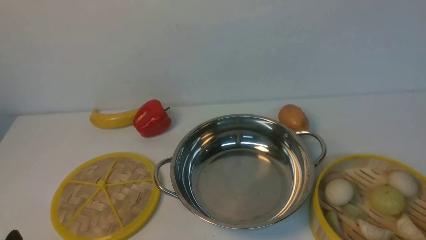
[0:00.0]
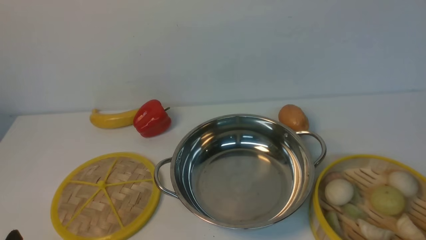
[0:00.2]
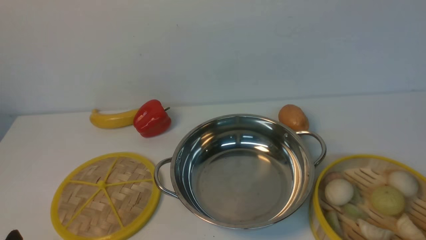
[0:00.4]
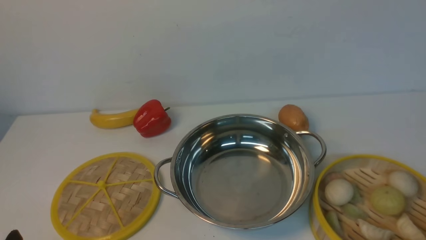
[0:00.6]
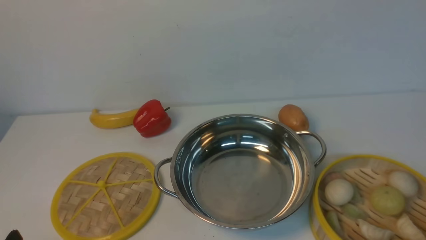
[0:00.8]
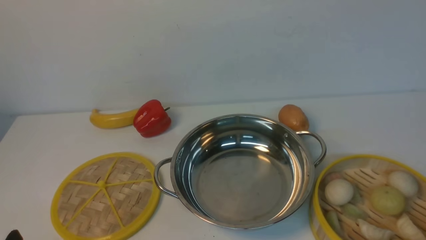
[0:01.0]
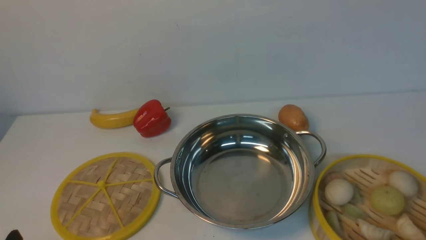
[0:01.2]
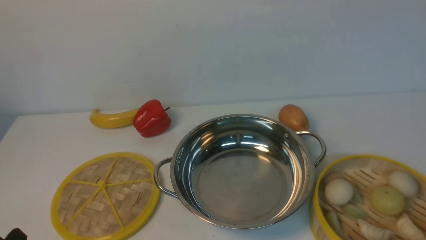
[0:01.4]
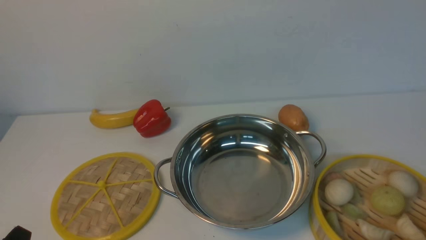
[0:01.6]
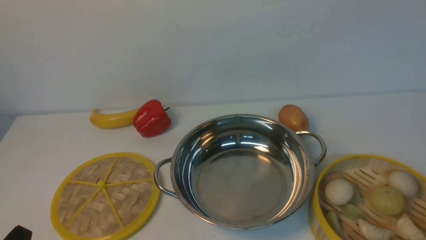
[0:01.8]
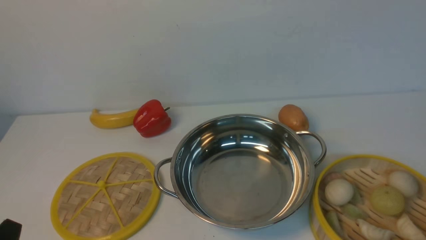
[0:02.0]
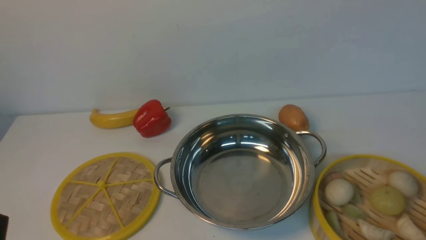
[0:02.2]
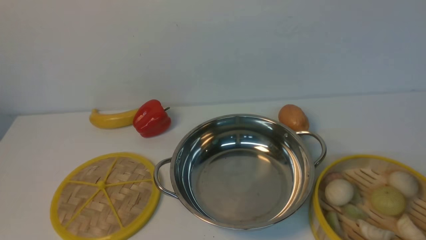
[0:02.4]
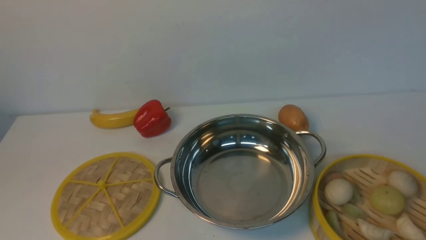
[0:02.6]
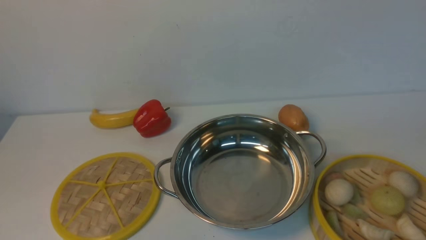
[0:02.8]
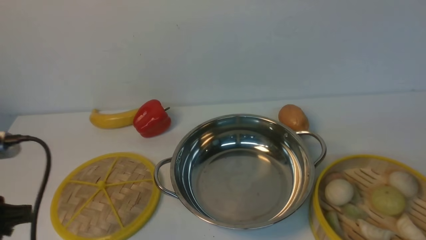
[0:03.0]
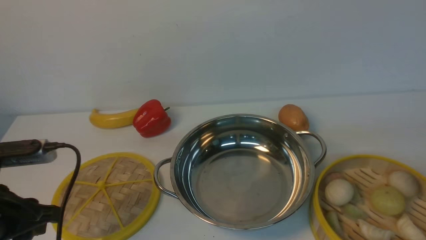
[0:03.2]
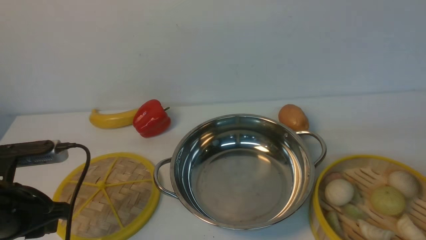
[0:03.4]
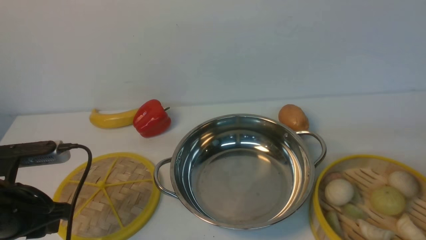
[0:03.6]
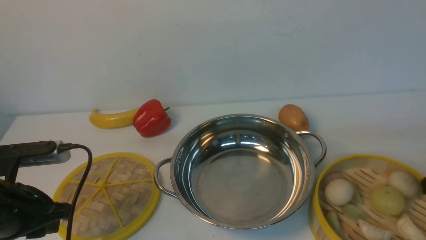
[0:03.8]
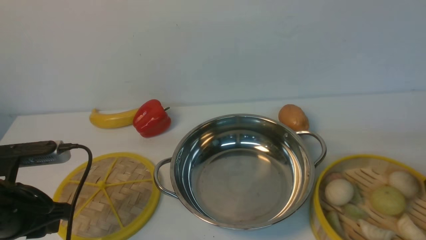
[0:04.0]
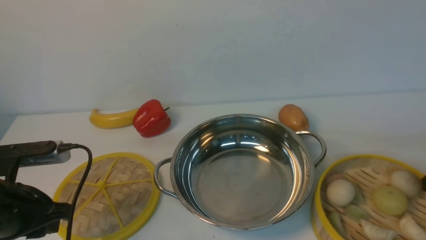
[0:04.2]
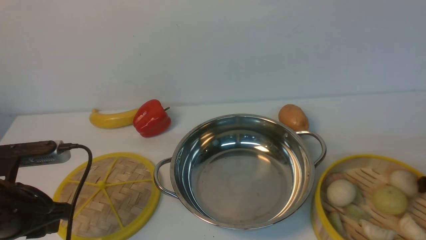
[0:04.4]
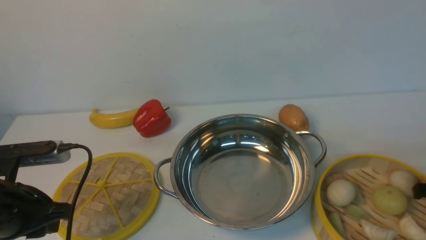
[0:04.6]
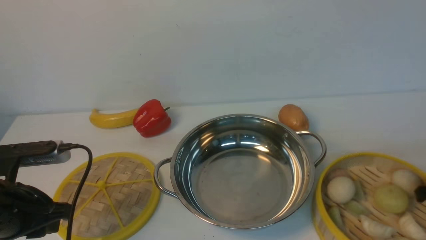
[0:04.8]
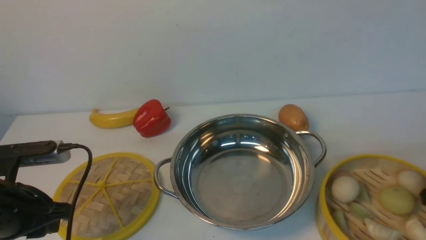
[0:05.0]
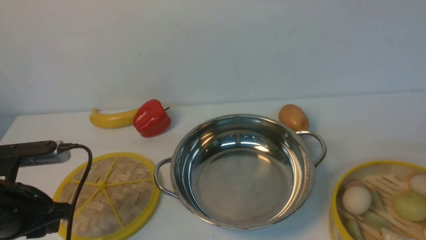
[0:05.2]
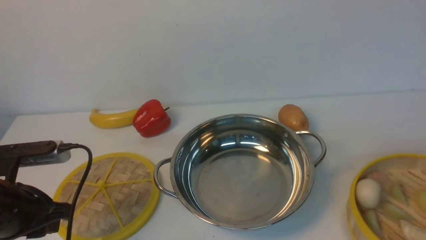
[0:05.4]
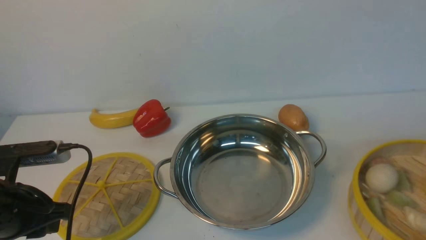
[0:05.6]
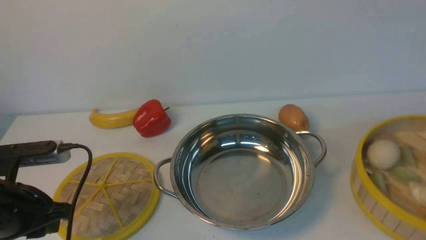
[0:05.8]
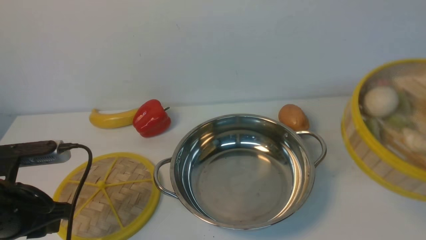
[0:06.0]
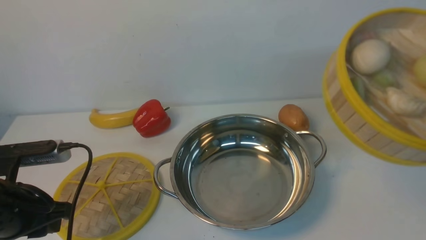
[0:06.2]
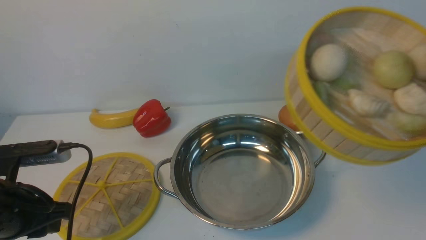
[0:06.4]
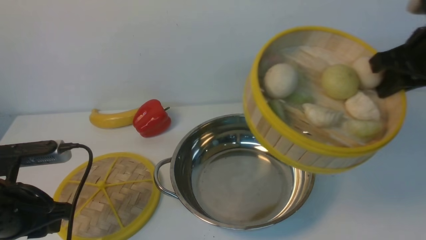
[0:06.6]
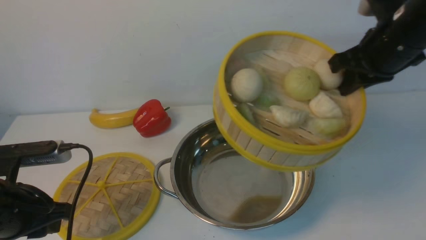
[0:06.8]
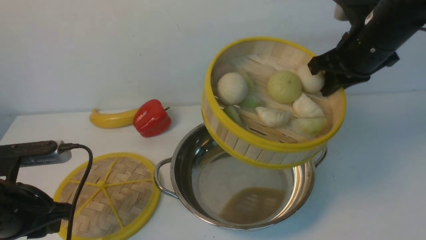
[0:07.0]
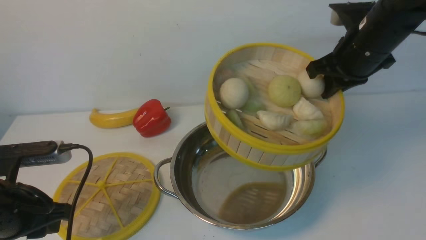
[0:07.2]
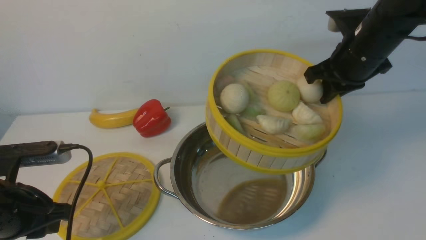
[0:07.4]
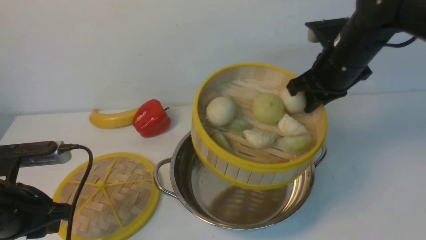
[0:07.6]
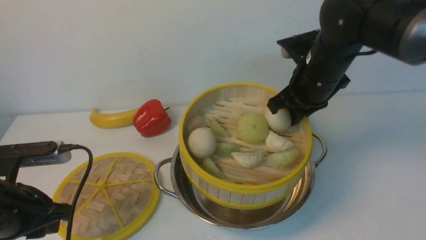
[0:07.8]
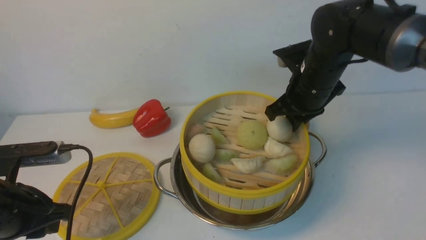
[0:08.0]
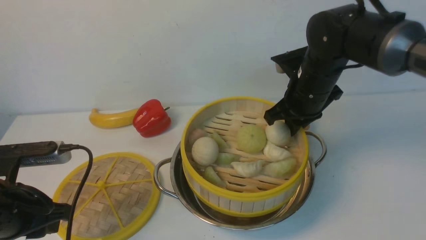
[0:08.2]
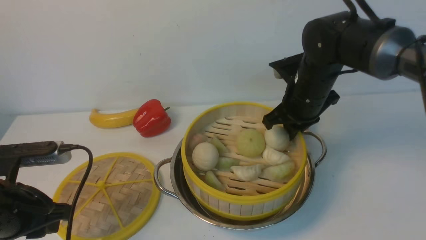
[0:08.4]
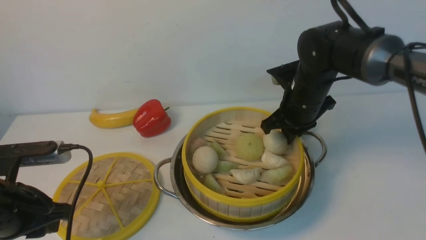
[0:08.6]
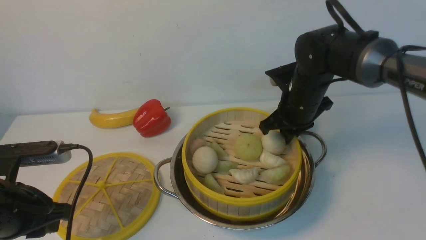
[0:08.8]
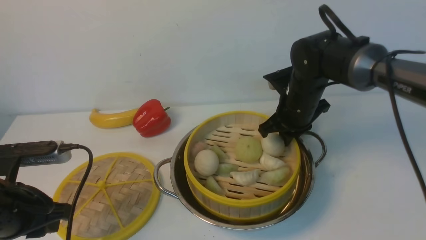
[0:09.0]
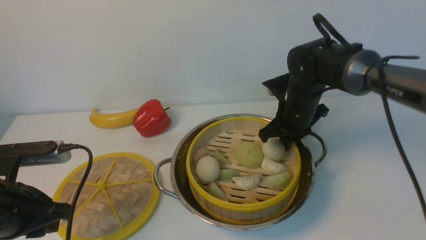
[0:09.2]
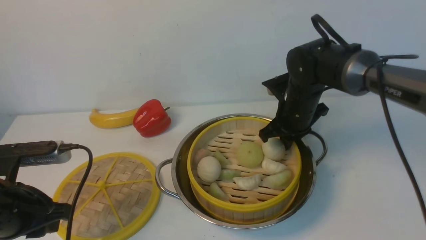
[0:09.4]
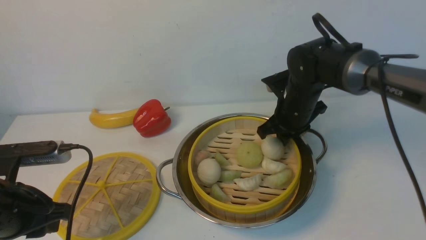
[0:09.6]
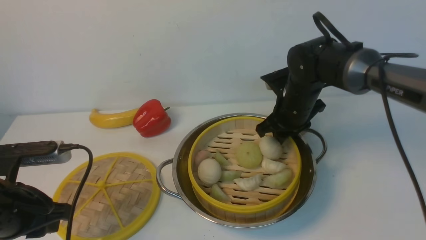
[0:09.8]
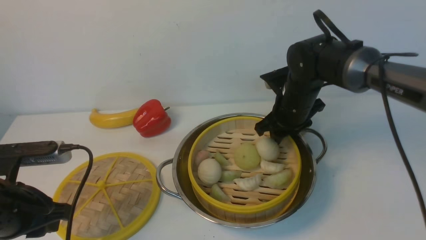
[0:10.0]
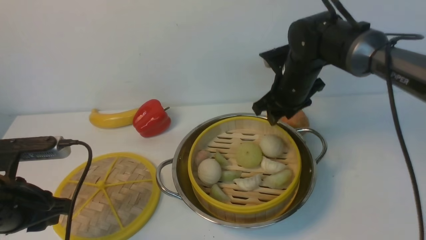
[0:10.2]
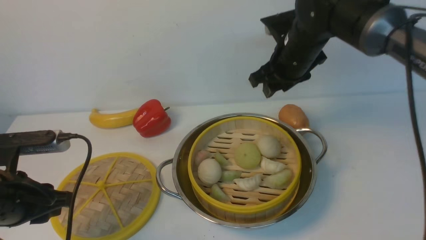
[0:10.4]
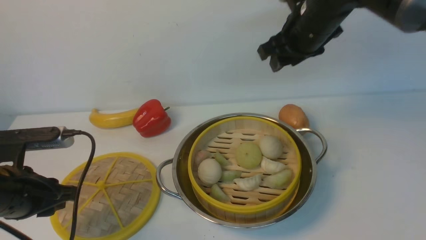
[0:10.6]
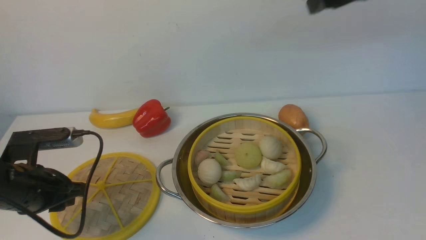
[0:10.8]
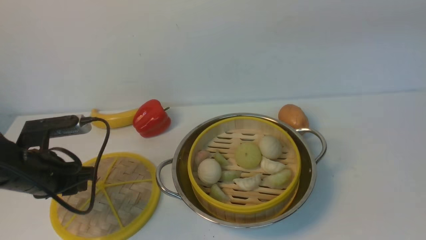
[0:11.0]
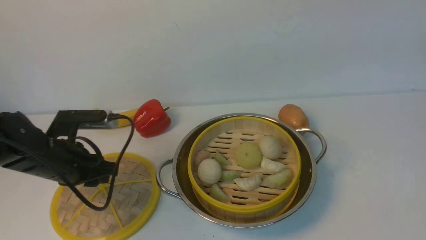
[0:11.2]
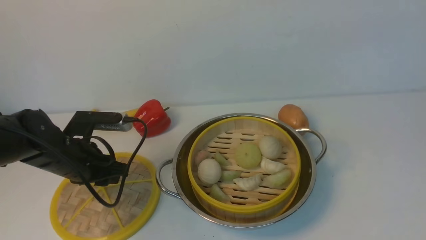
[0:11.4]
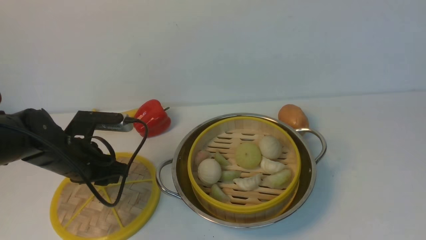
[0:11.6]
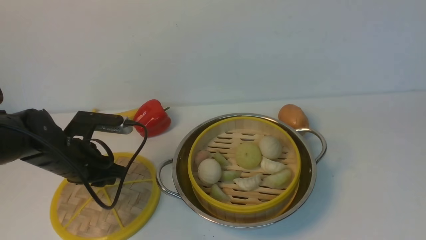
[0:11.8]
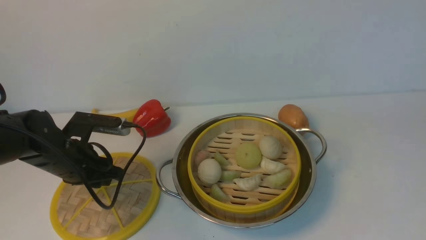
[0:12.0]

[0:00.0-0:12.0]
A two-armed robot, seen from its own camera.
Task of the whole recording: place the steamer in the pot on the white table, and put the lid on the steamer.
Step, 0:00.0 to 0:05.4: use the right arm to lift the steamer closest to it.
Step, 0:05.6 to 0:10.6: use the right arm to put the steamer into the iron steamer pot in the middle.
0:01.6 to 0:03.0: The left gripper travels upward and forward by some 15 cm.
0:03.0 to 0:04.4: The left gripper goes about 5 cm downward.
0:04.4 to 0:06.0: The right gripper moves upward, roughly 15 cm, and closes.
0:06.0 to 0:07.6: The right gripper goes roughly 25 cm to the left and forward.
0:07.6 to 0:09.0: The right gripper is displaced downward by approximately 10 cm.
0:09.0 to 0:10.4: The right gripper travels upward by about 10 cm, and opens.
0:10.4 to 0:12.0: The left gripper moves forward and downward, approximately 10 cm, while the right gripper moves backward, to the right and upward, roughly 40 cm.

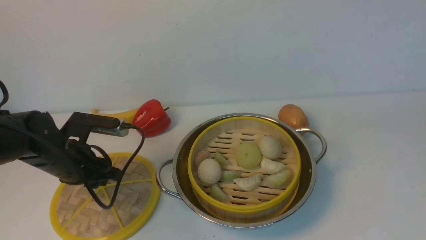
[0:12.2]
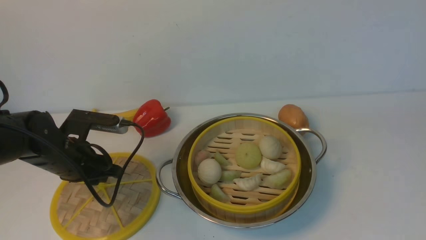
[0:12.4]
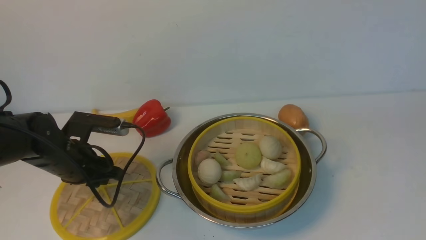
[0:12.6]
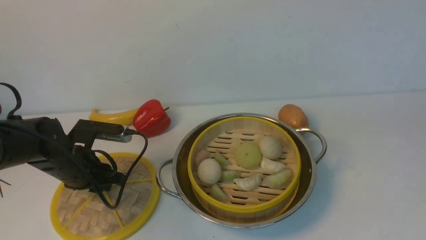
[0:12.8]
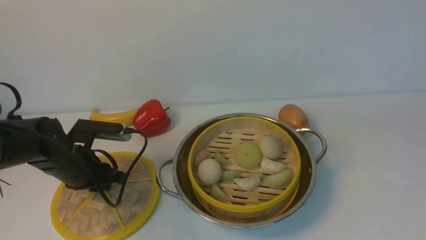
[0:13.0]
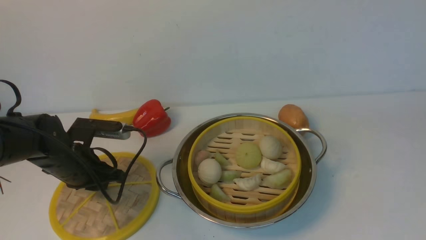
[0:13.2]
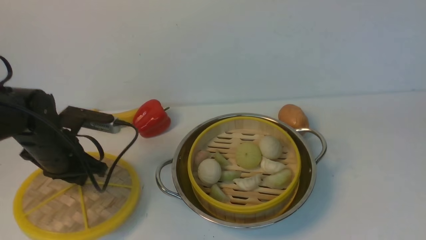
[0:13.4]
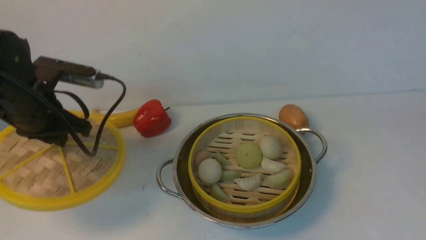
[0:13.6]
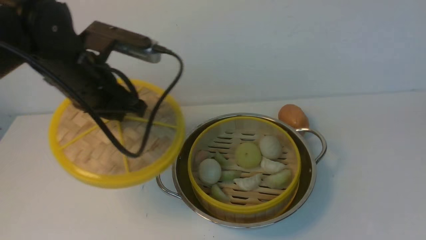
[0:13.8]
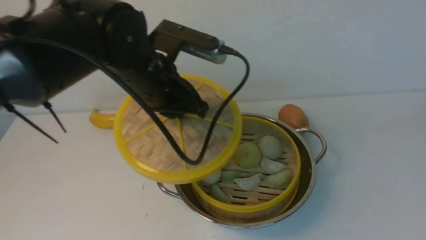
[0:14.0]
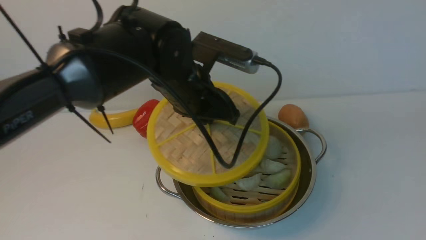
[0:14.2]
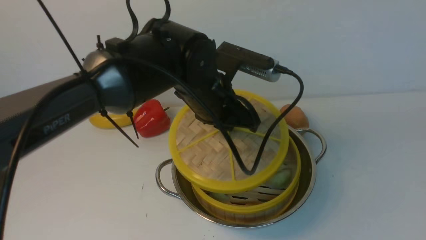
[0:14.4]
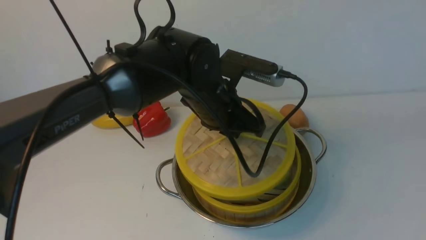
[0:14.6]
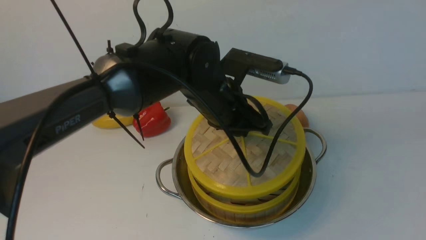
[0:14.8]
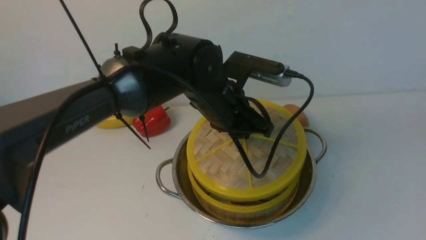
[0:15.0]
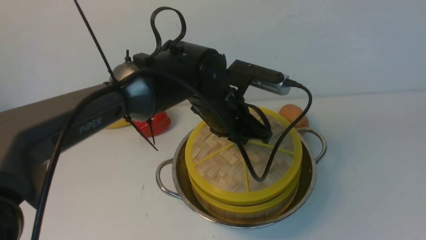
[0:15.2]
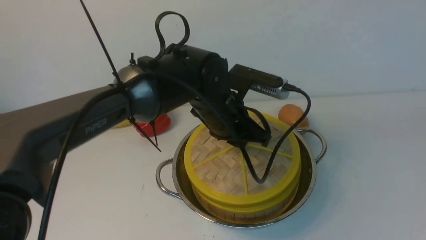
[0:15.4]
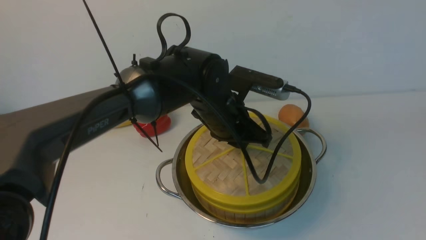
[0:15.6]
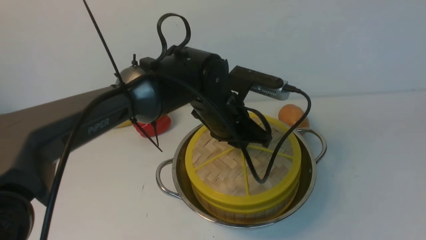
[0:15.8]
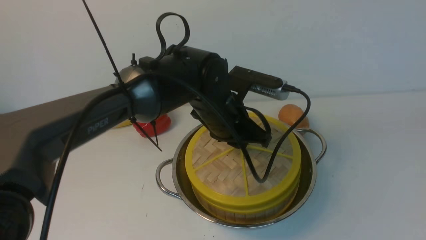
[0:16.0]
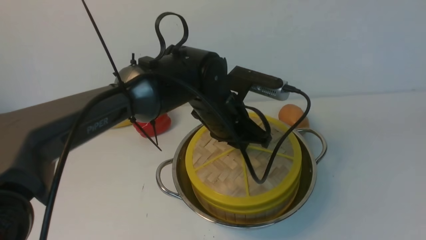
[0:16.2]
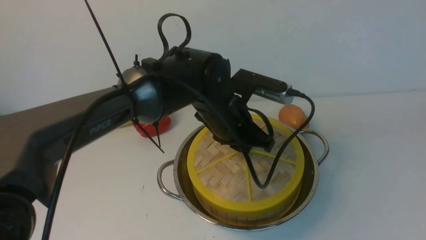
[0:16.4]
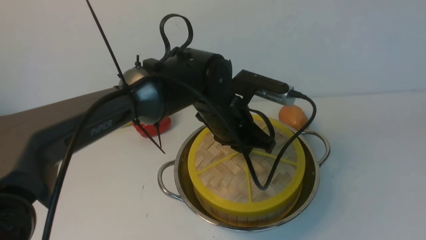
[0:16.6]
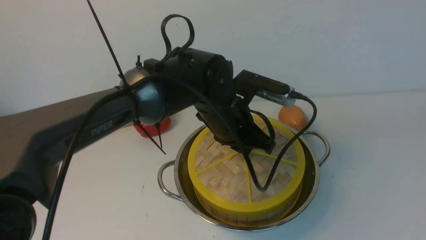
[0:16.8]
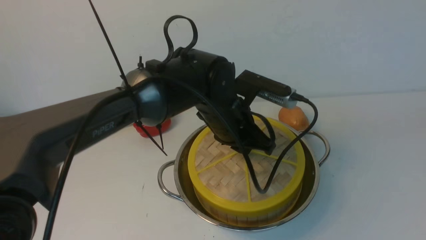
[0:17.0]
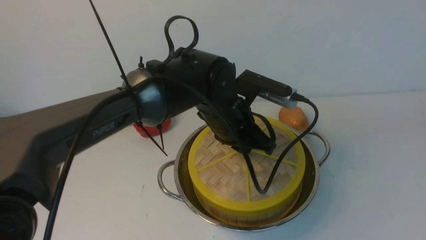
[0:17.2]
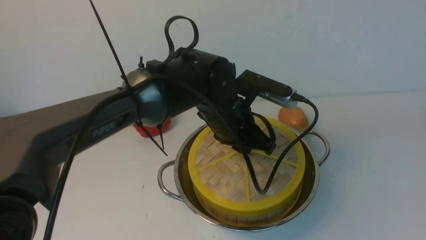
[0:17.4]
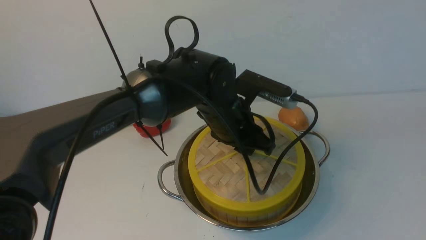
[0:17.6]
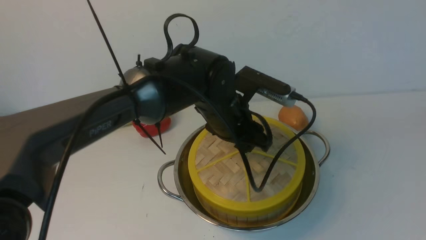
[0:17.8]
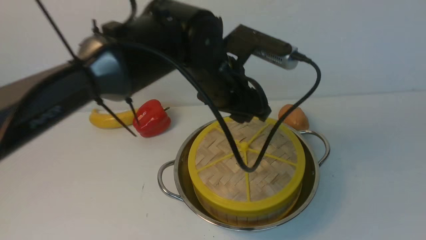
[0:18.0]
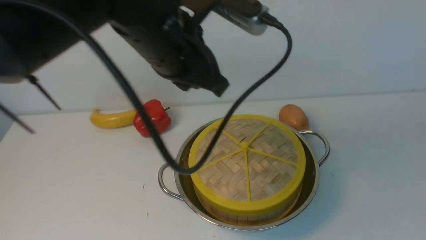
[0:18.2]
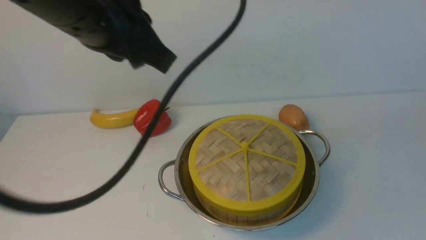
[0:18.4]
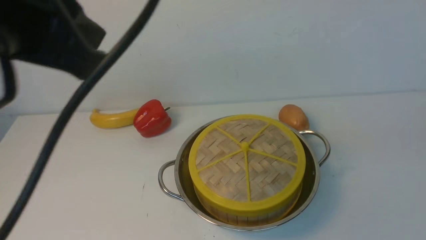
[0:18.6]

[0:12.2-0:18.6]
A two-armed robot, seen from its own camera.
Task of the whole recording: place the steamer in the pot on the white table, and put the lid on the steamer.
Step, 0:12.2 to 0:13.6: use the left arm to lift the lid of the steamer.
Step, 0:13.8 to 0:18.2: use the left arm to place the steamer lid on the steamer.
0:12.2 to 0:13.8: The left gripper moves upward and to the right, approximately 15 cm, and closes its fingers.
0:13.8 to 0:15.4: The left gripper is displaced to the right and downward by about 20 cm.
0:15.4 to 0:17.0: The two grippers keep their place.
0:17.0 to 0:18.6: The right gripper closes its fingers. Meanwhile the left gripper travels upward, backward and to the left by some 35 cm, and closes its fingers.
